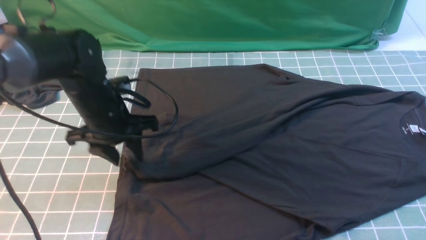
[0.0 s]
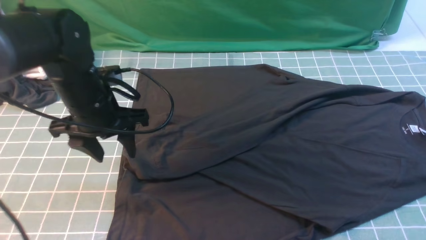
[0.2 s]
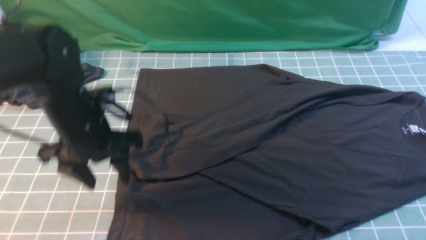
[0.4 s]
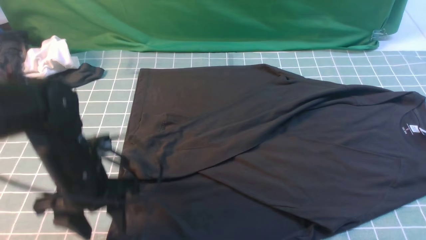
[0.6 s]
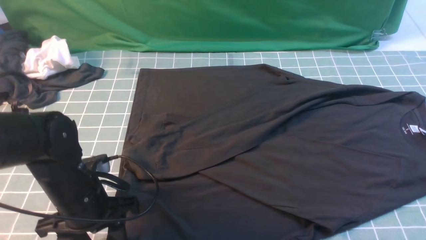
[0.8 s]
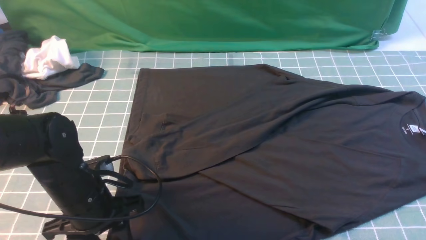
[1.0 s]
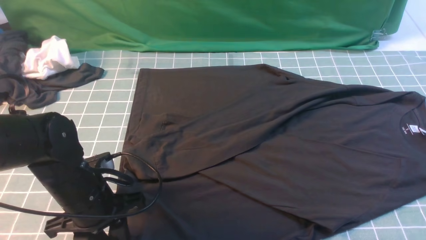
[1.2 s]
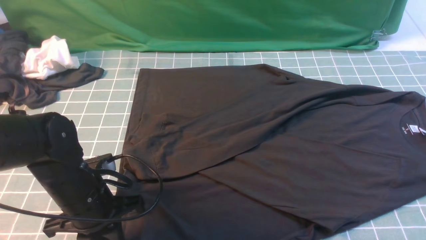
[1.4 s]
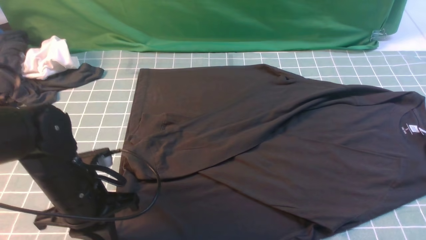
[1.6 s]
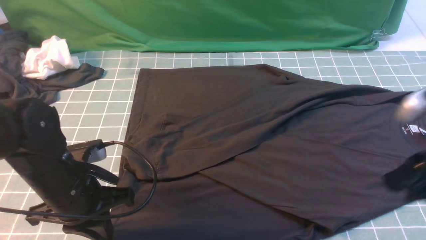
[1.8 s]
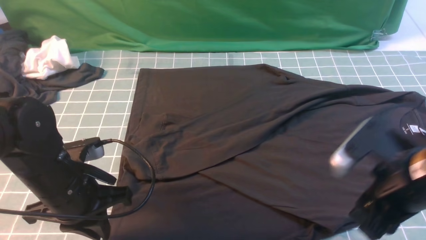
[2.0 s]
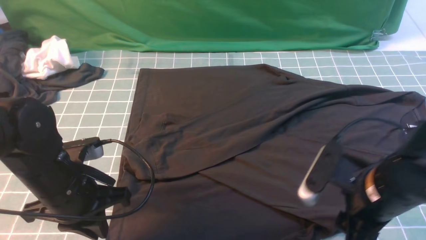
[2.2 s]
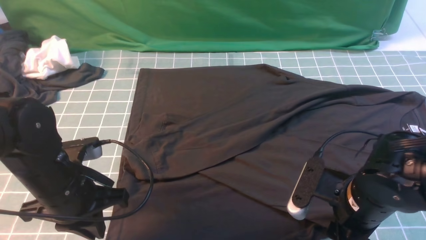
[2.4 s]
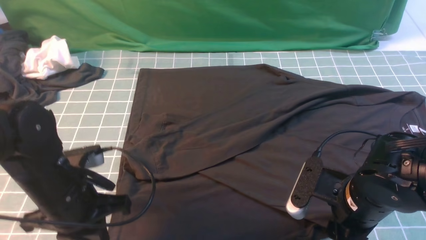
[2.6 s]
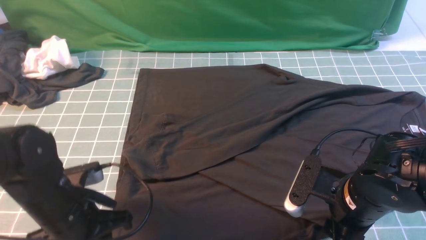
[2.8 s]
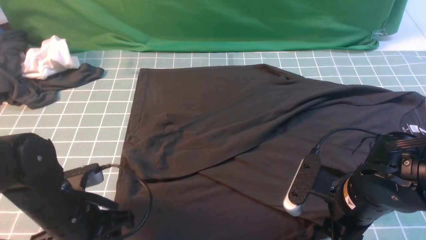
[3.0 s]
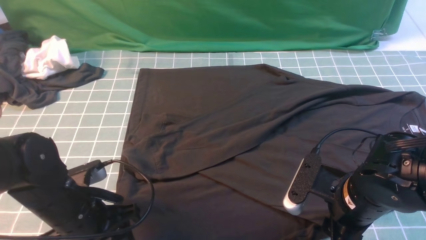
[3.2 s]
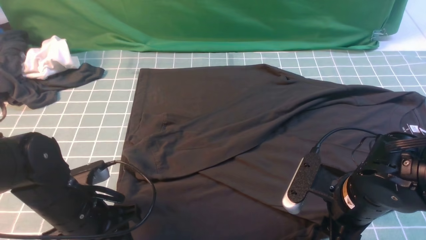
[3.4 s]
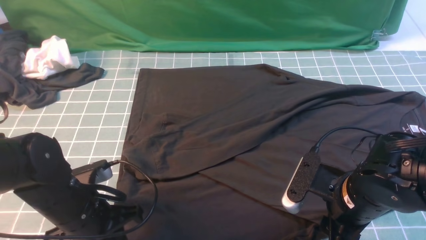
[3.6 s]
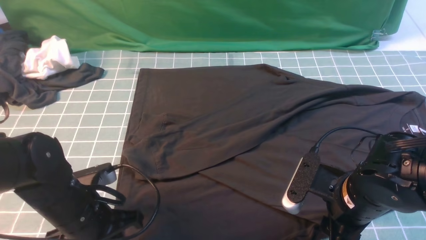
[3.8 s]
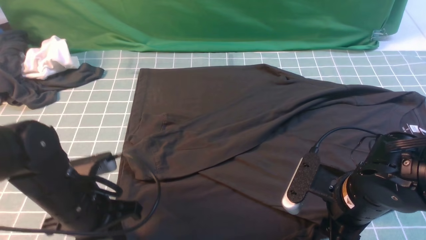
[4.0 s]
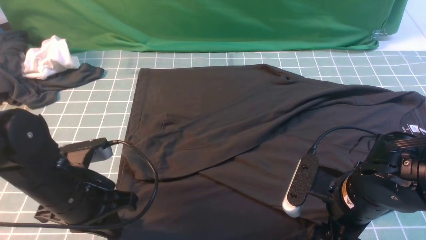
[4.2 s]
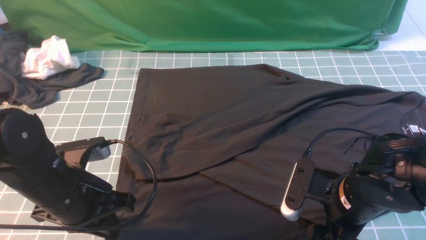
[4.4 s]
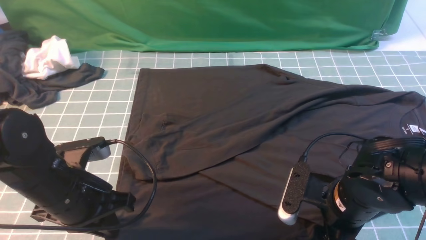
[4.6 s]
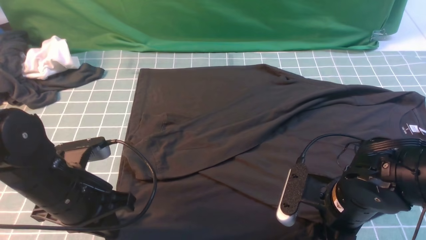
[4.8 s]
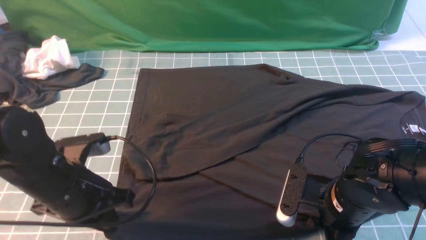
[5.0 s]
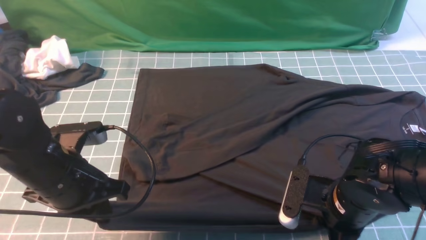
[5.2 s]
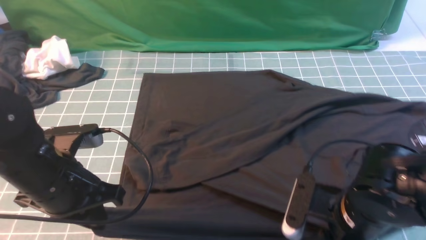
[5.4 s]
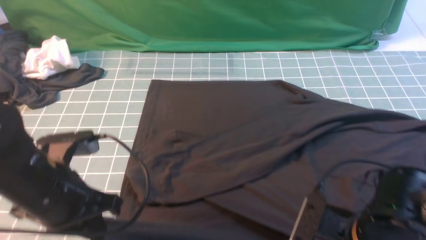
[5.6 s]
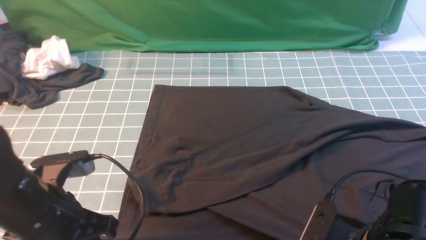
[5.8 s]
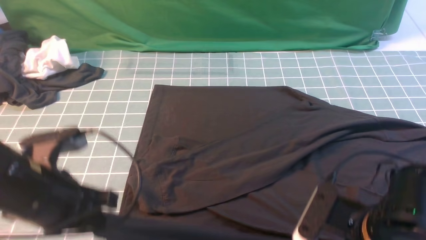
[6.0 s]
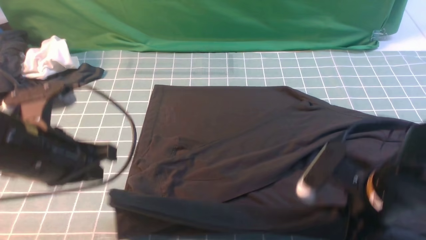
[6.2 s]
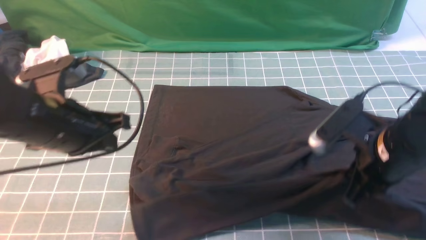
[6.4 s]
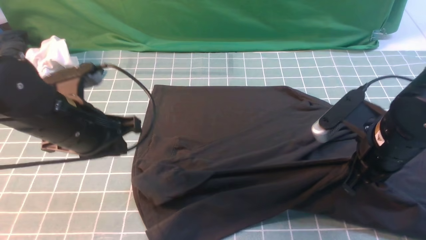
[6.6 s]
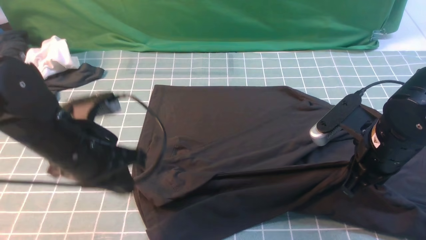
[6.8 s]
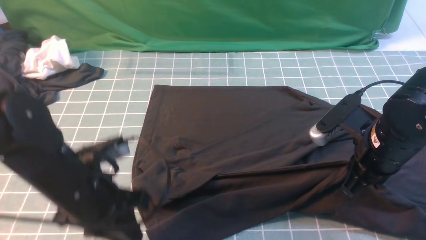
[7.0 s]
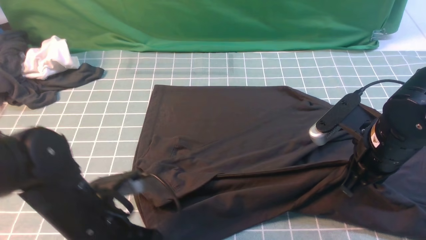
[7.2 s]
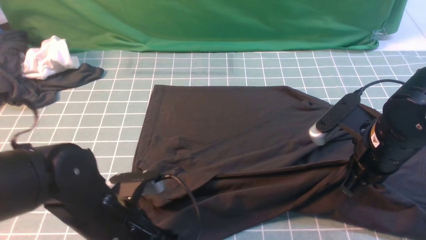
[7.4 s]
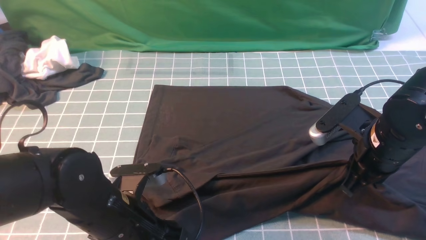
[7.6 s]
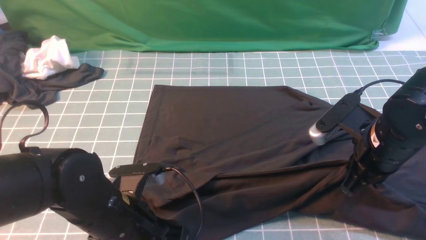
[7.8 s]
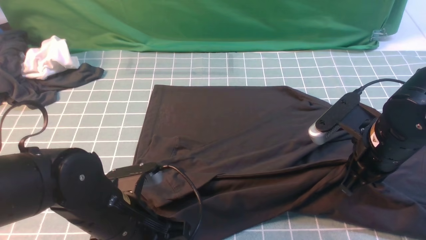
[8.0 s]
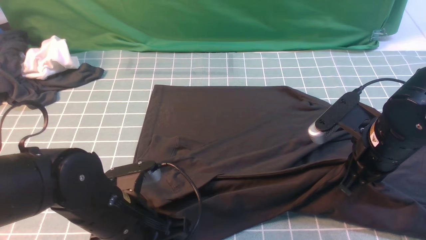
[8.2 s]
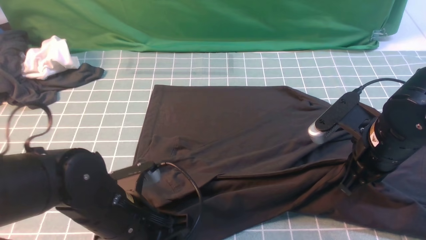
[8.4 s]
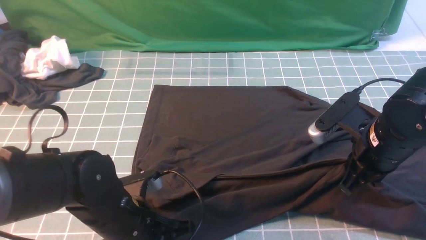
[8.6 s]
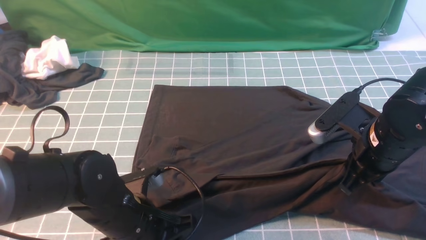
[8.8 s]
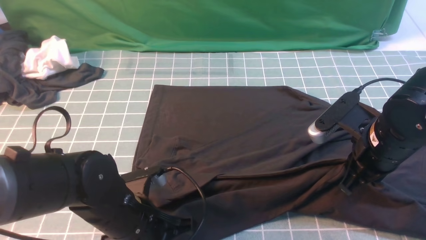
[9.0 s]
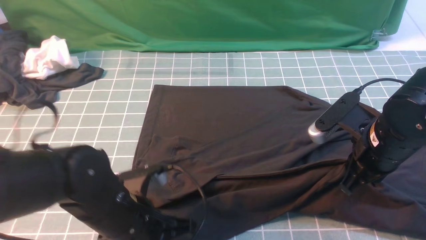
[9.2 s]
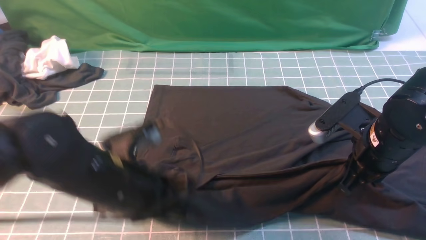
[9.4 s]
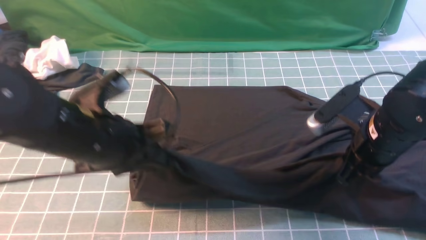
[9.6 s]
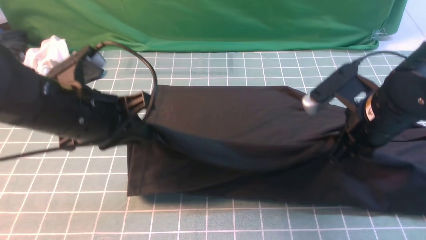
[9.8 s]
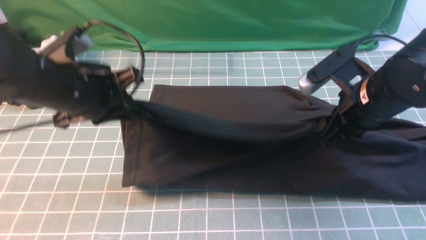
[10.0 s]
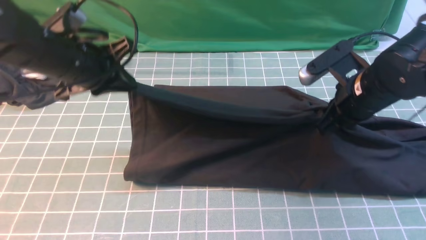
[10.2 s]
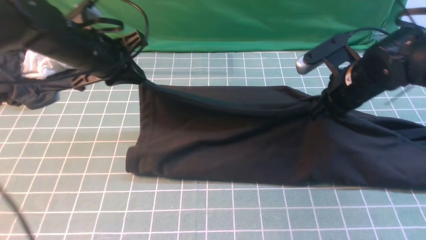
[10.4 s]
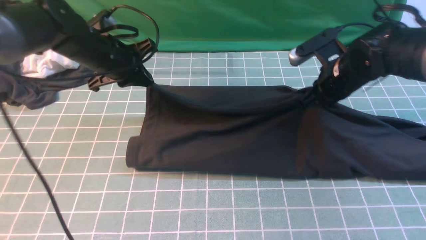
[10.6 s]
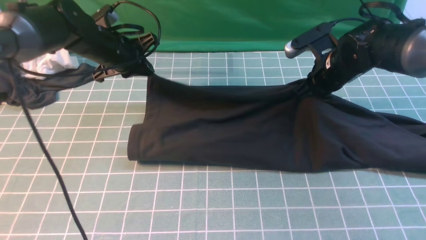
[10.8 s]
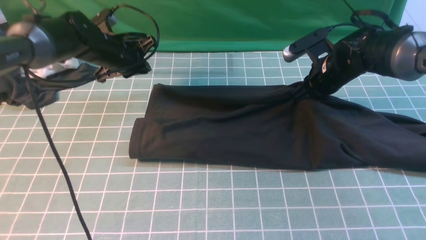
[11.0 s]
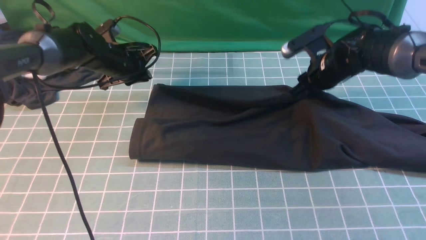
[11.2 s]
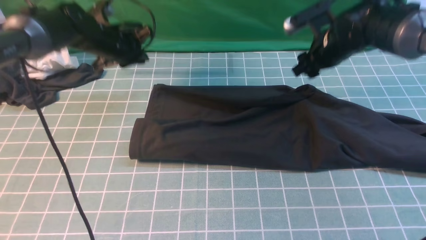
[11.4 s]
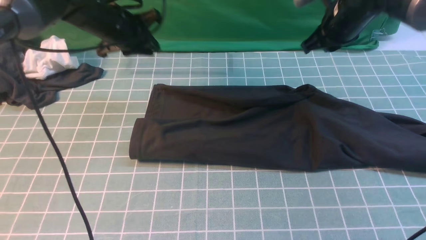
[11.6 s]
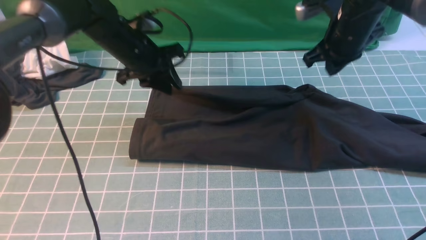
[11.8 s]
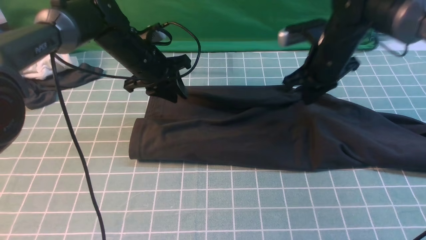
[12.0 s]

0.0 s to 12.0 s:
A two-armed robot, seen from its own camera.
Step, 0.2 to 9.2 s: use both arms simultaneously to clamp the lower edge of the clothing fabric.
0.0 to 1.6 s: The left gripper moves backward, about 10 cm, and closes up.
1.6 to 3.0 s: The right gripper heads downward and to the left, covering roughly 20 cm, and opens its fingers. The left gripper opens.
3.0 to 4.4 s: The left gripper closes up.
4.4 to 6.0 s: The left gripper shifts roughly 5 cm upward. The right gripper is displaced backward by roughly 5 cm, and closes up.
6.0 to 7.6 s: The left gripper heads to the right and downward, covering some 10 cm, and opens its fingers, while the right gripper goes approximately 10 cm forward.
7.6 to 9.0 s: The left gripper closes its fingers.
9.0 to 10.4 s: The right gripper moves forward, roughly 10 cm. The left gripper shifts approximately 25 cm forward, upward and to the left.
10.4 to 12.0 s: The left gripper goes approximately 10 cm forward and downward, and opens, while the right gripper moves forward, some 5 cm, and opens, then closes once more.

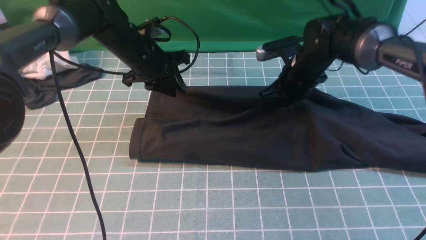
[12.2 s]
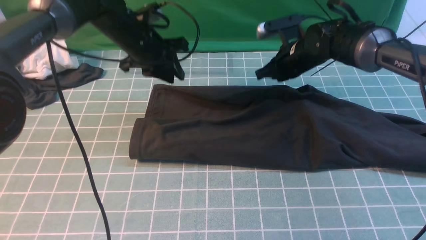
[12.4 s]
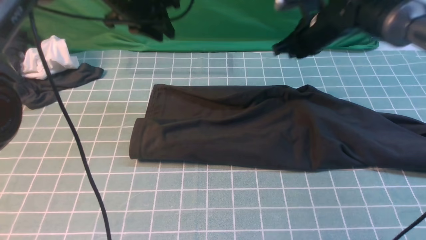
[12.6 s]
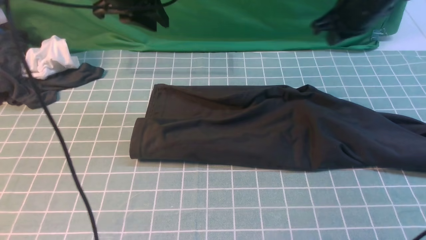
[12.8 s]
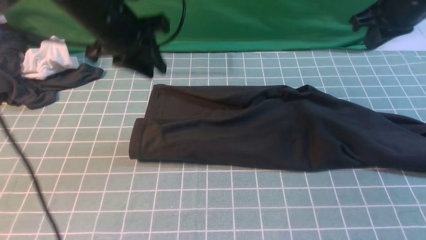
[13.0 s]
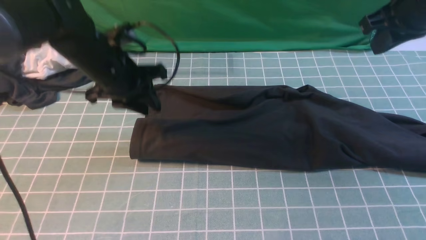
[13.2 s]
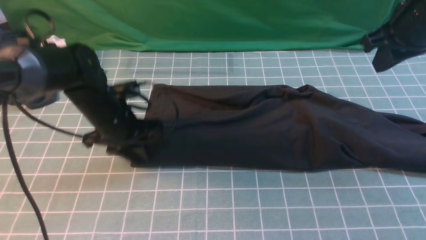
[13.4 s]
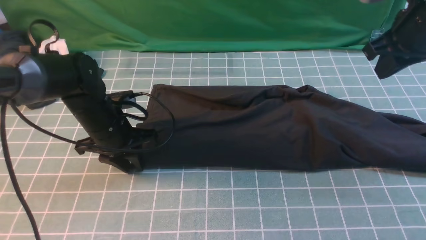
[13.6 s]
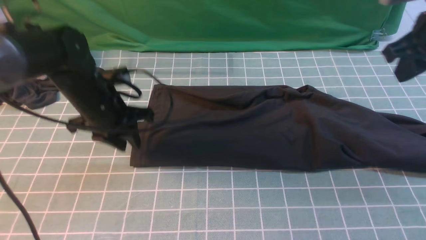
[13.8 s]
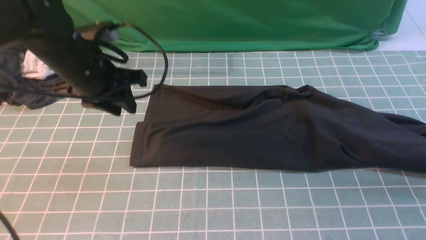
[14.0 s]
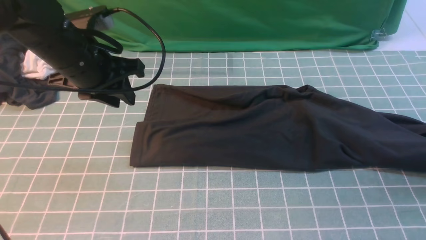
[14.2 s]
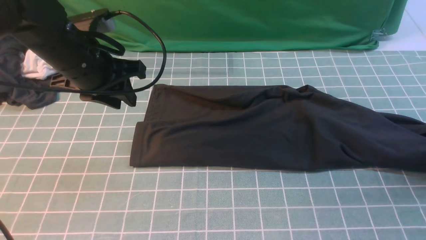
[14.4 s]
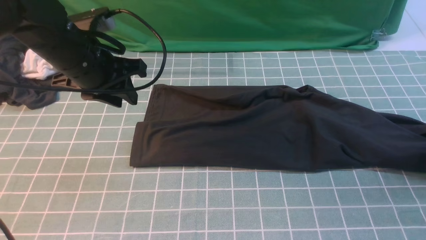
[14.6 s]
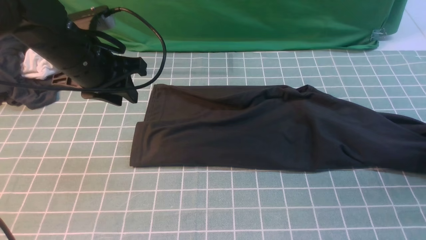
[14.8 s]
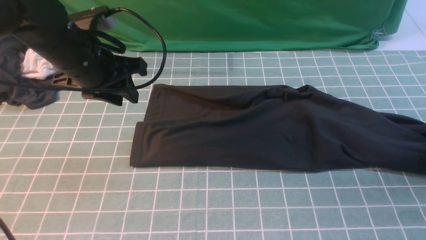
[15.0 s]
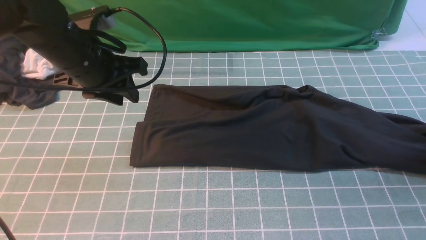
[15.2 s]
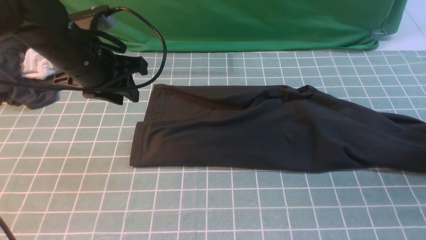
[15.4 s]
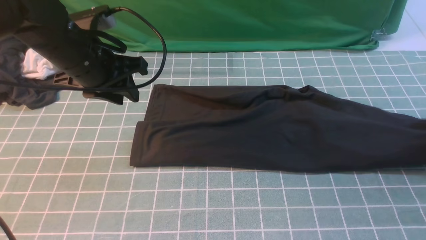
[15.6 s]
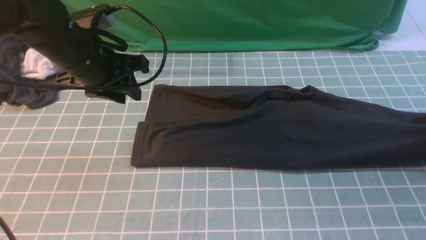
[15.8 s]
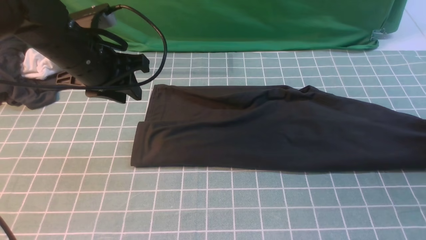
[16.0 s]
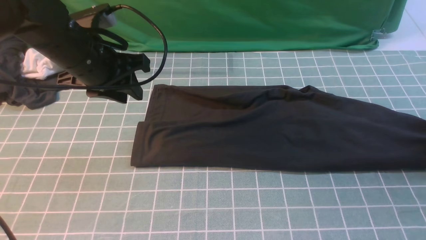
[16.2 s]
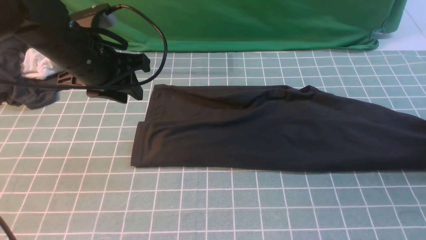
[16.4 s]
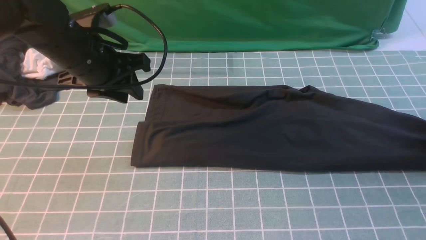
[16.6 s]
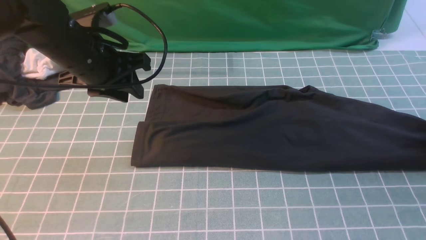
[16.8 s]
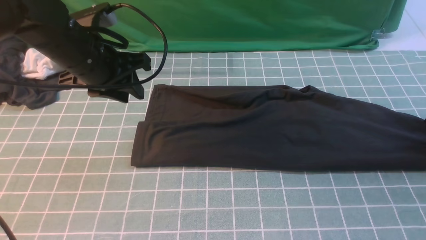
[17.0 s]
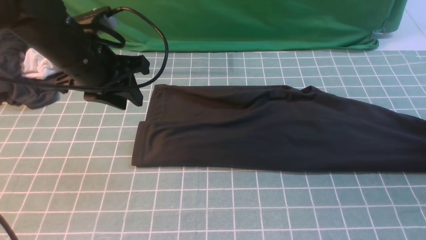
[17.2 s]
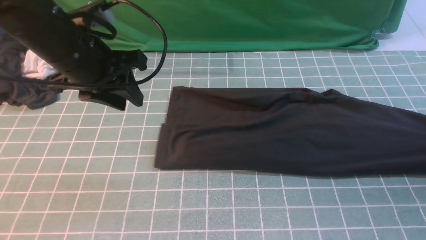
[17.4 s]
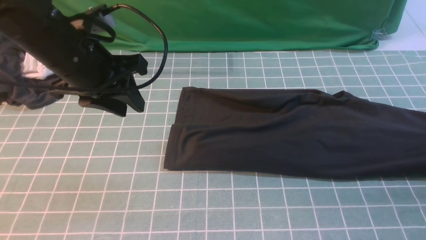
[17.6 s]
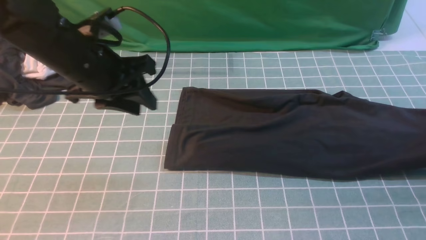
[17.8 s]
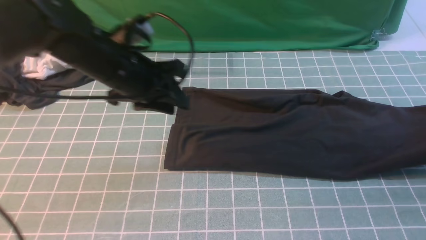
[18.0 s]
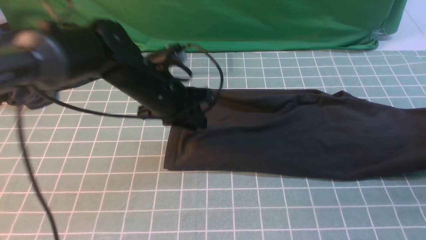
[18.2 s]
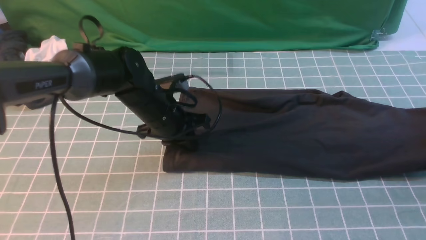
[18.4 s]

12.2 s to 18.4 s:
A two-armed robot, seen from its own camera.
Step, 12.6 to 18.2 s: use the right arm to clamp the right edge of the fabric.
12.2 to 13.8 s: The right gripper moves to the right, upward and backward, roughly 25 cm. Meanwhile the left gripper swings up and down, some 15 cm each way, with 2 reversals.
13.8 to 15.4 s: The left gripper shifts approximately 5 cm upward. The right gripper goes approximately 20 cm downward and to the right, and opens, then closes once more.
15.4 to 16.8 s: The right gripper opens its fingers.
16.8 to 18.4 s: The right gripper moves upward, about 15 cm, and closes its fingers, while the left gripper goes about 15 cm downward and to the right, and closes up.
